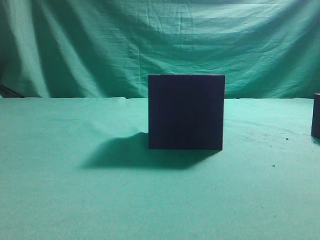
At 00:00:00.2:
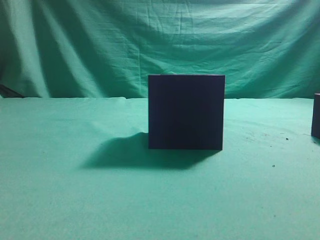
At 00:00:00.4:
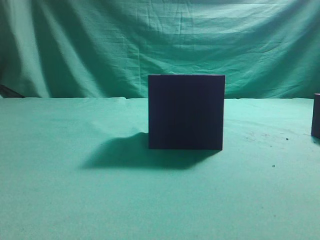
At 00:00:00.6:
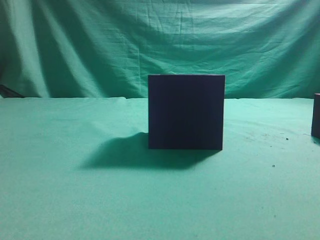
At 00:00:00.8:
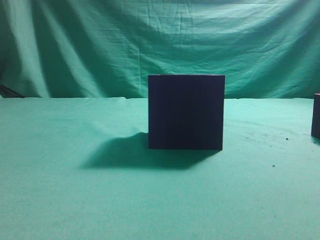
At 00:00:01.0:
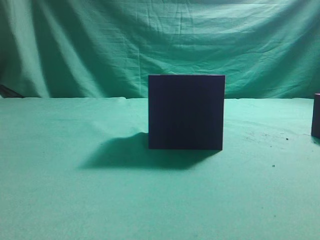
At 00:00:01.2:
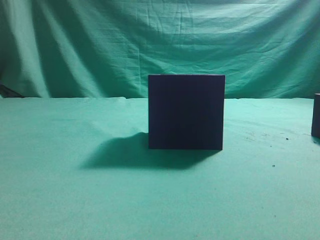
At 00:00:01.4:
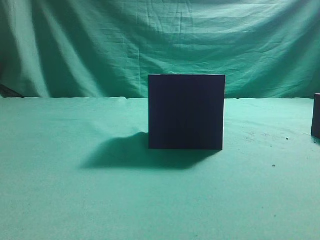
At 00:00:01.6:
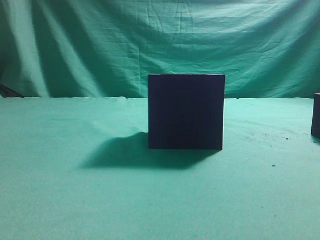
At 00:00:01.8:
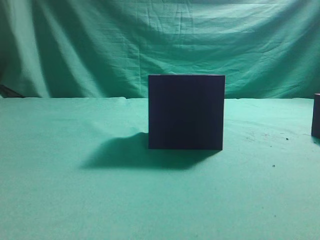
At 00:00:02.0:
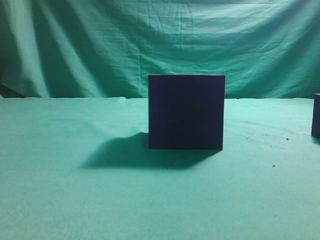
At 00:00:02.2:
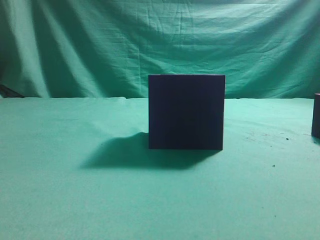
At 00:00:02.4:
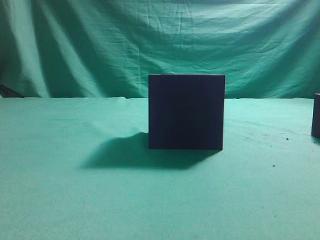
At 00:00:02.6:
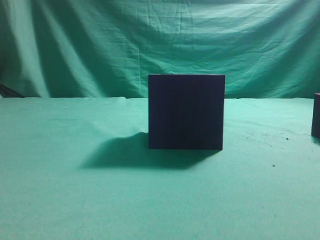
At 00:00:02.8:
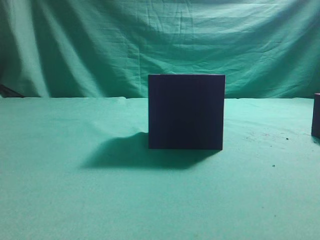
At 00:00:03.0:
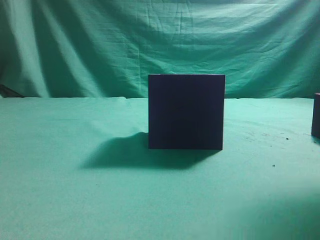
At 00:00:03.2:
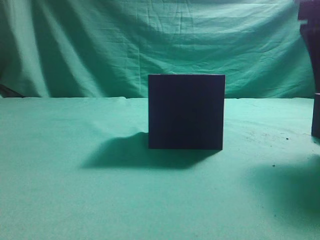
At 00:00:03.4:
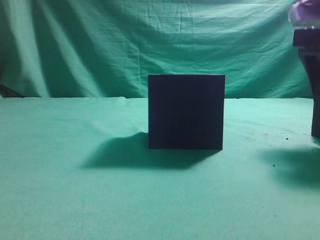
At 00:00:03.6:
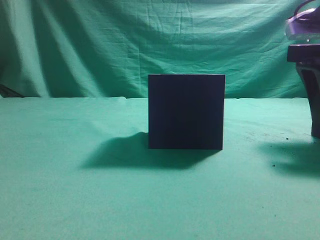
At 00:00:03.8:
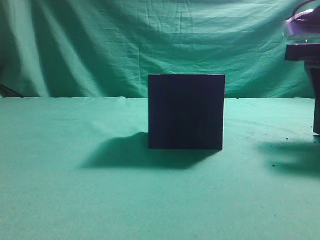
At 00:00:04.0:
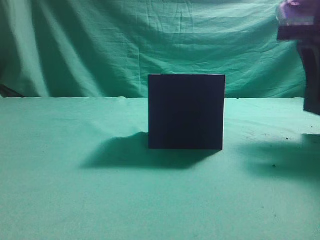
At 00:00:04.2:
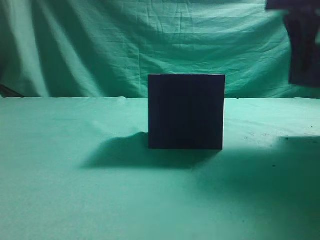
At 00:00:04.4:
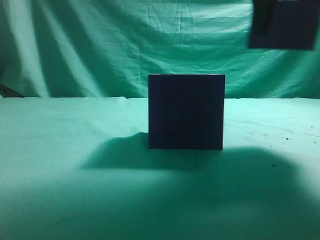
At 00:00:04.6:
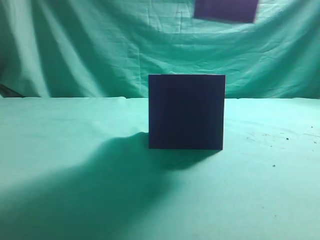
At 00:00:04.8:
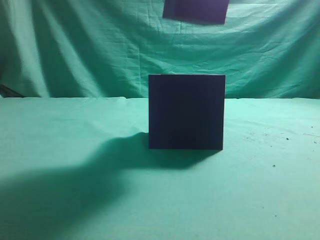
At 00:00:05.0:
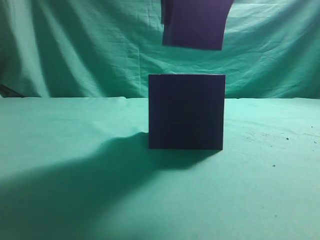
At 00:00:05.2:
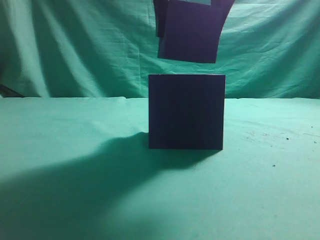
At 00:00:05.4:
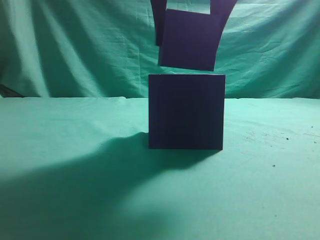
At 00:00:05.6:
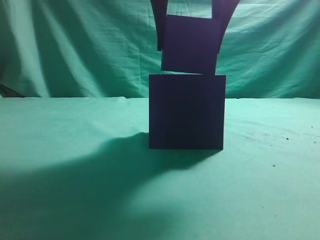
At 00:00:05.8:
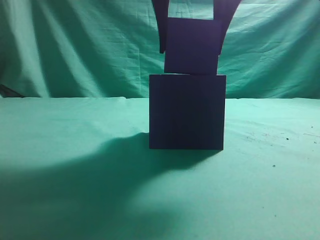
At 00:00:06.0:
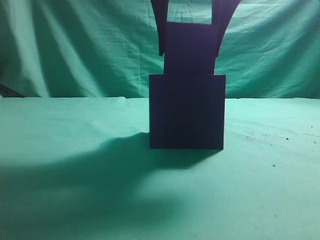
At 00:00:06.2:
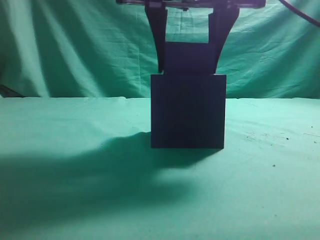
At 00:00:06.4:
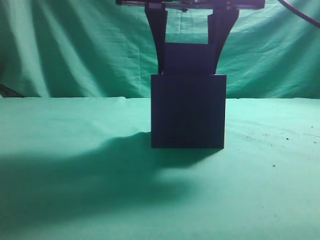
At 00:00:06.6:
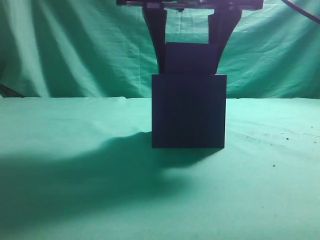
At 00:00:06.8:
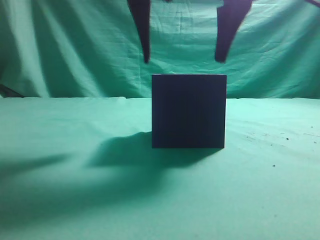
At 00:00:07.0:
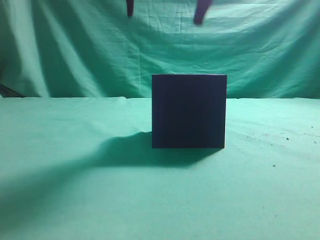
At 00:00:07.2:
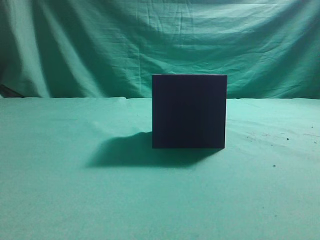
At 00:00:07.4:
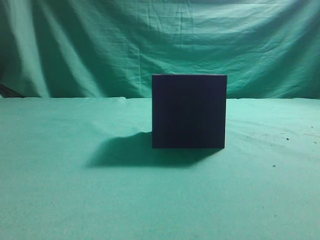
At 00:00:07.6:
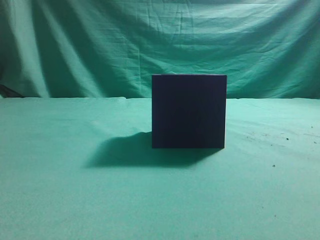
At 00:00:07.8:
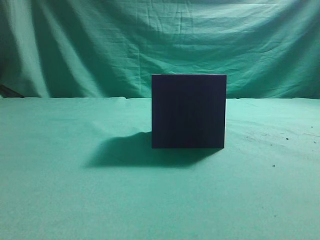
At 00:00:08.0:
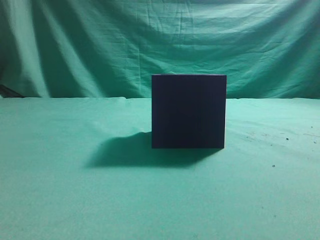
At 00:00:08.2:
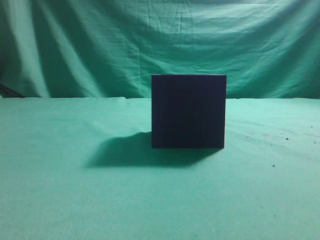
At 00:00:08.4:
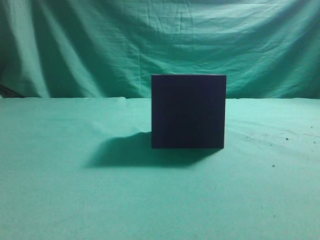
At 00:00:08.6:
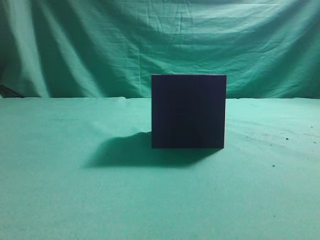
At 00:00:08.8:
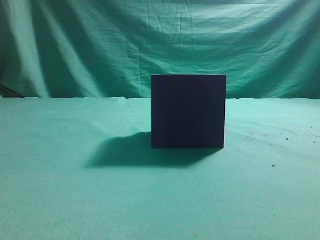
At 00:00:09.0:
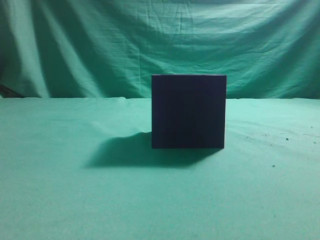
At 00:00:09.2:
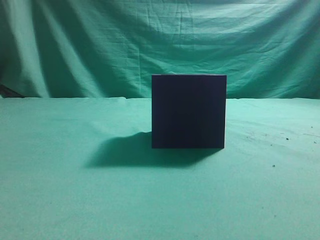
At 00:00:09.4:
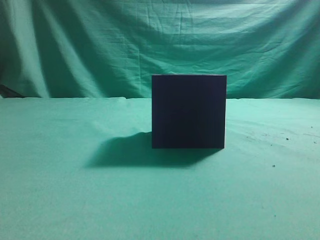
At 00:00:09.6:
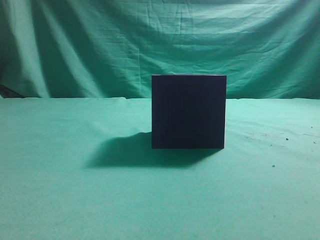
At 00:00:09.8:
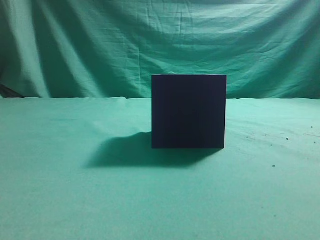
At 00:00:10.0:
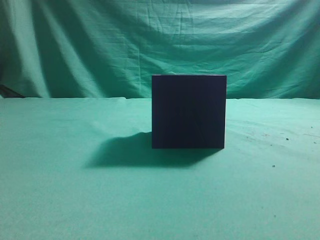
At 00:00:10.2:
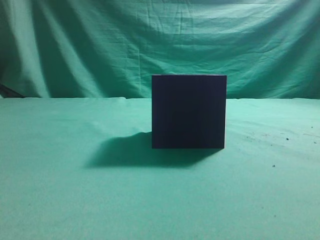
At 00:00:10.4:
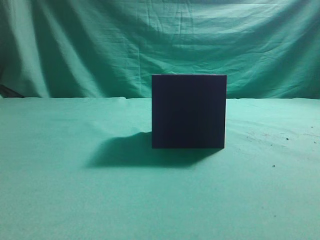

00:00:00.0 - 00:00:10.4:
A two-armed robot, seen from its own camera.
Task of the whole recording: pick up the cube block and place it into the cube groove.
Step, 00:00:00.0 - 00:00:04.0: Grasp the cube.
Step, 00:00:04.2 - 00:00:06.8: Place cube into the cube-shaped recess.
00:00:01.4 - 00:00:03.0: The right gripper goes about 15 cm forward, and opens its fingers.
00:00:03.0 - 00:00:04.4: The right gripper moves to the left and forward, approximately 10 cm.
00:00:04.4 - 00:00:06.0: The right gripper moves to the left, roughly 10 cm.
00:00:06.0 - 00:00:07.4: The right gripper heads upward, covering approximately 15 cm, and closes.
